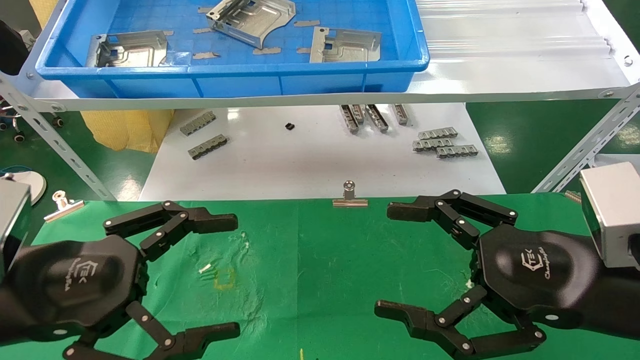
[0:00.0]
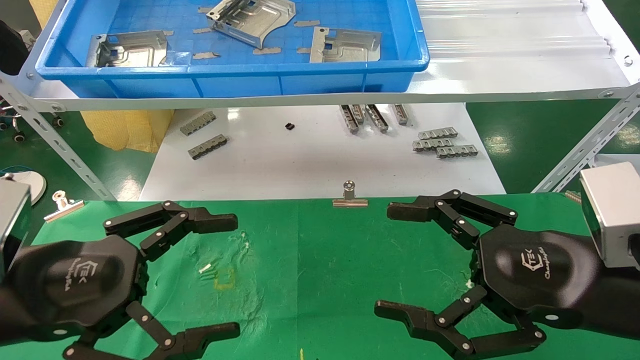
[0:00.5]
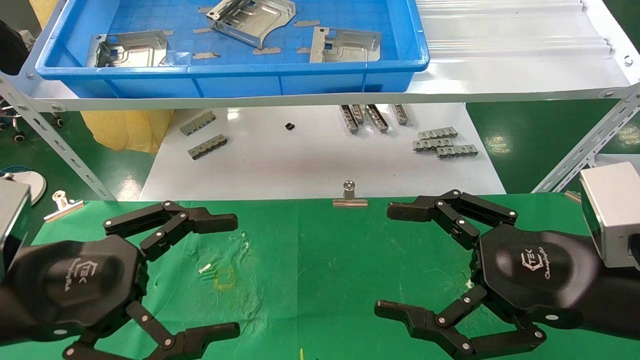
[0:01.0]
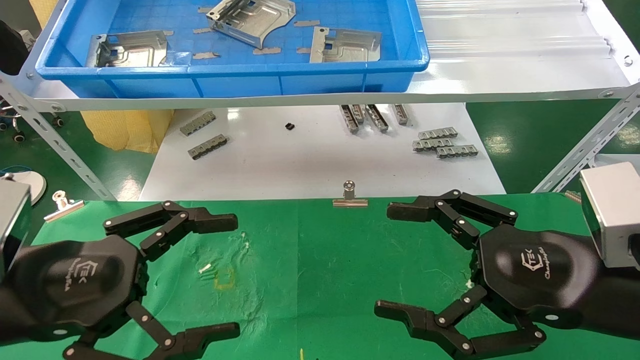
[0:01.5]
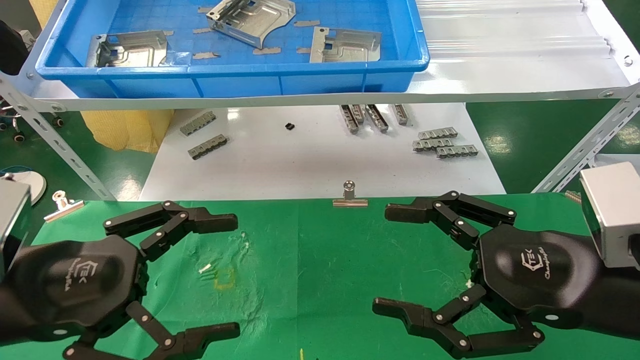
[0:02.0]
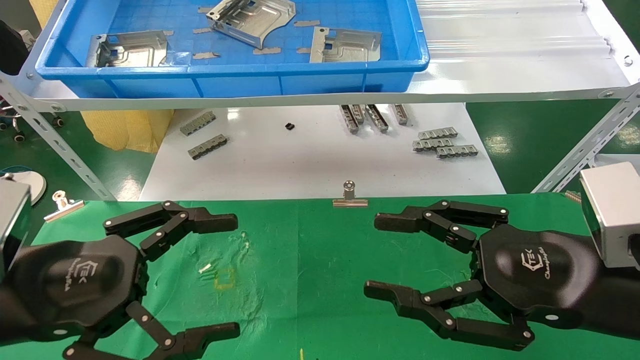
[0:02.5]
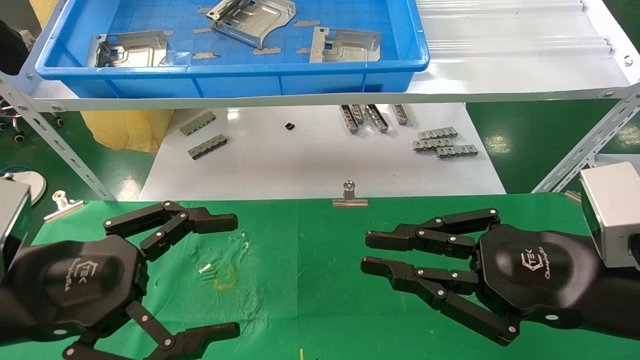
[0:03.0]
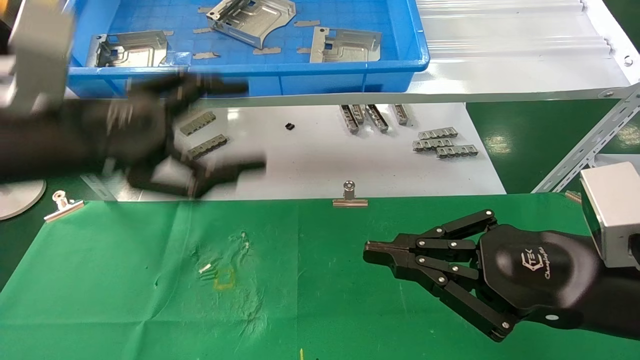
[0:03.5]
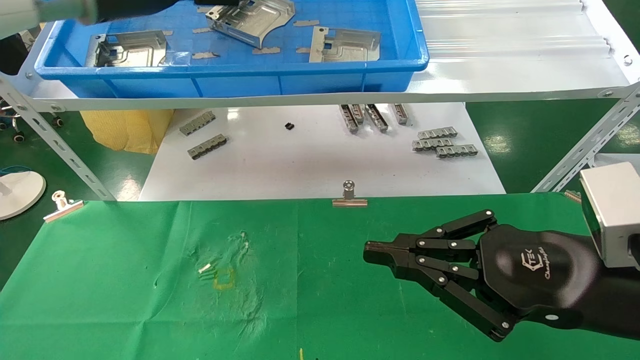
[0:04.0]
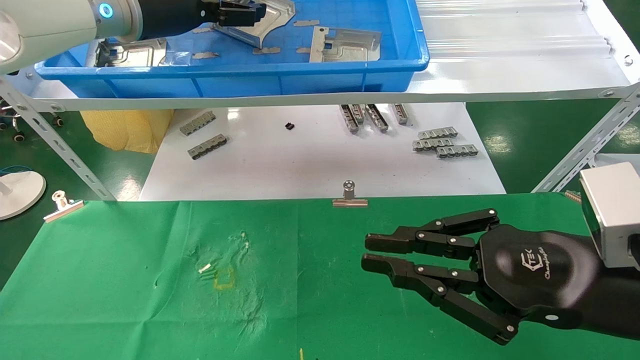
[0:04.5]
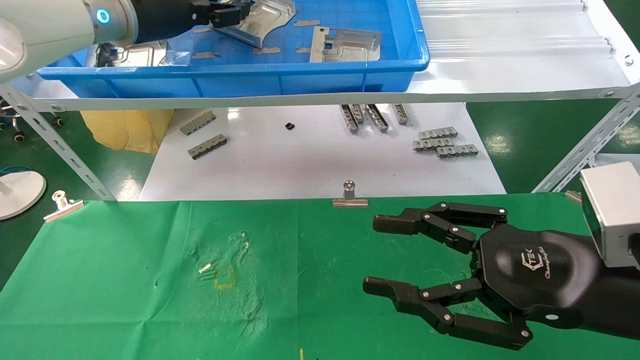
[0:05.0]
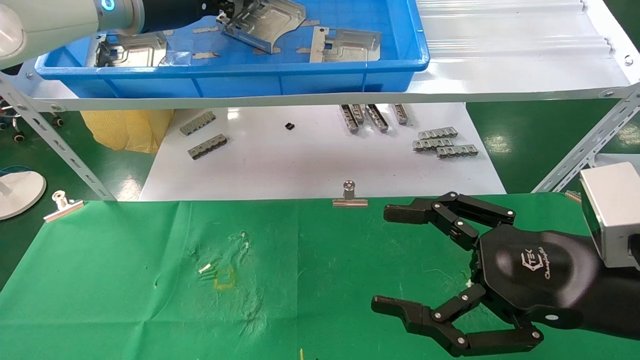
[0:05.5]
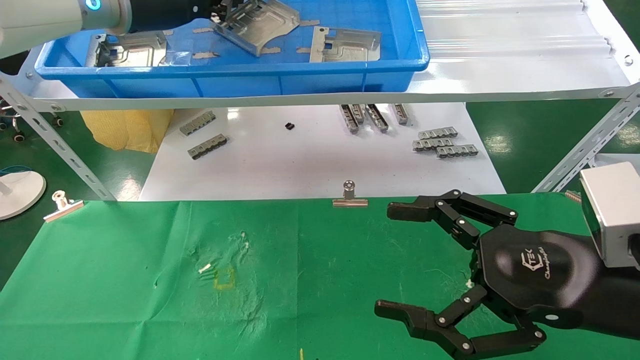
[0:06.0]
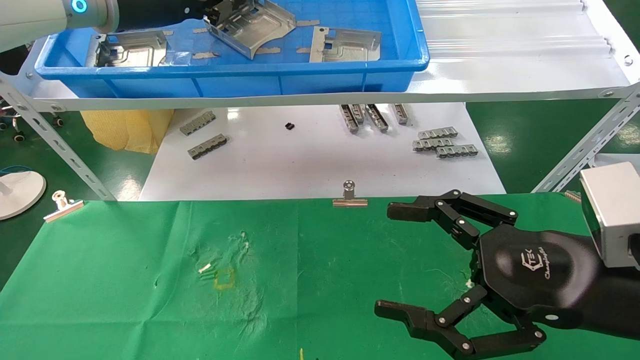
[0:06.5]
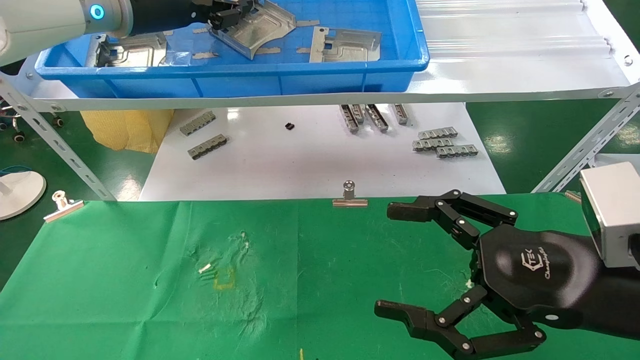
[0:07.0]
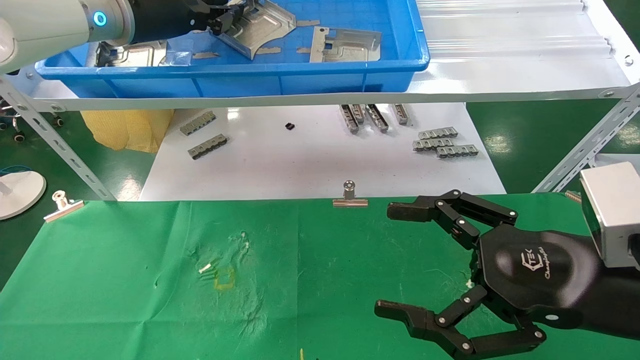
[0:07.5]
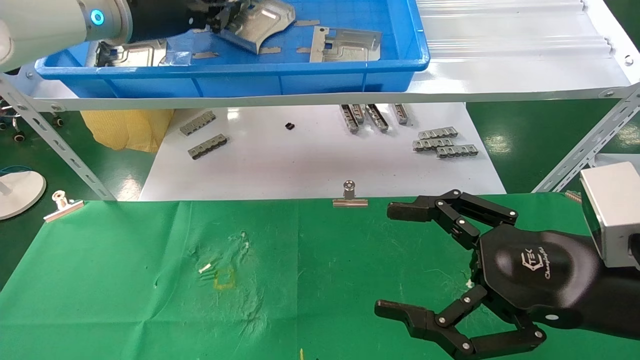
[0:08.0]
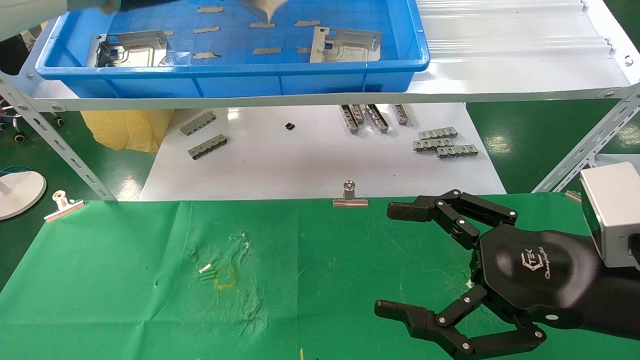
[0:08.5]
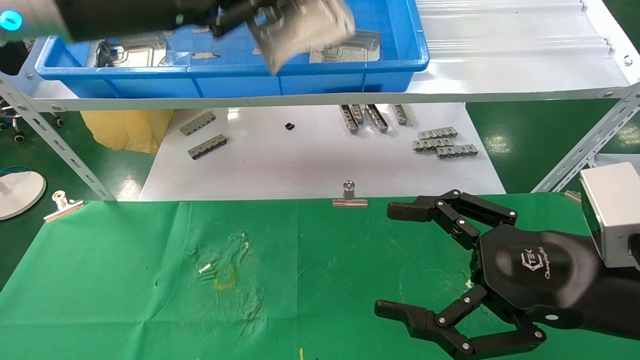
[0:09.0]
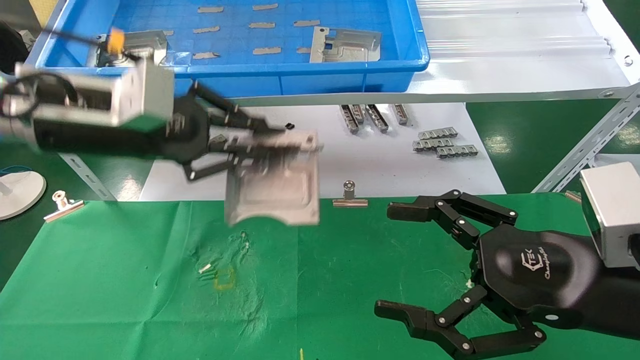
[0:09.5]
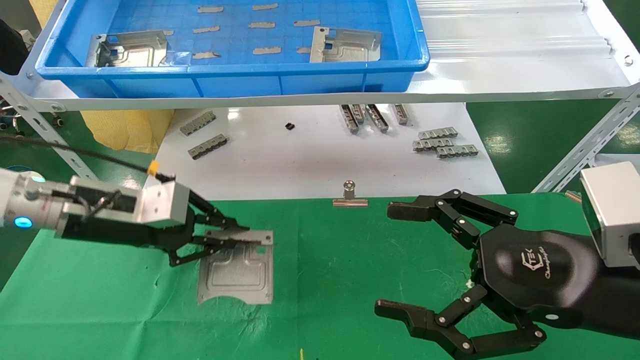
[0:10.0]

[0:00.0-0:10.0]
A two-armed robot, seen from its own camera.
Task of the whole recording: use the mechanical arm to pick up the parts and place them on the table.
Step, 0:03.5 to 0:07.5: Pick up the hard drive bracket from the feeding area.
0:00.0 to 0:02.0: Both grippers stay put.
0:02.0 to 0:04.0: The right gripper closes. Meanwhile the left gripper is displaced upward and forward by some 30 cm.
0:04.0 to 0:06.0: The left gripper closes, while the right gripper opens up.
0:06.0 to 0:08.0: The grippers stay close to where they were, moving slightly.
0:08.0 to 0:10.0: The left gripper travels downward by approximately 25 cm.

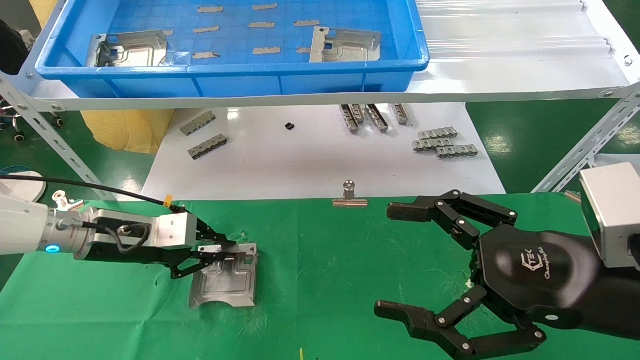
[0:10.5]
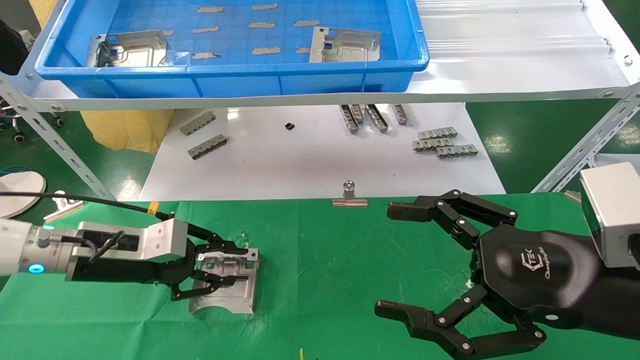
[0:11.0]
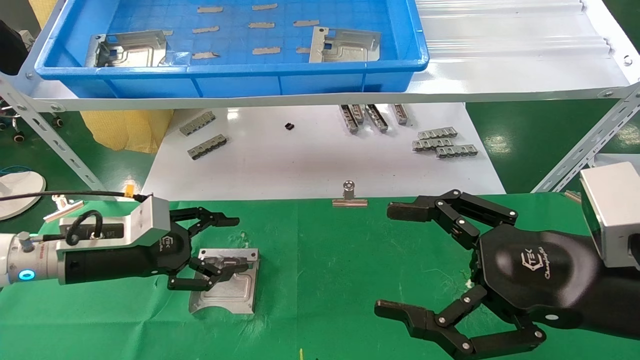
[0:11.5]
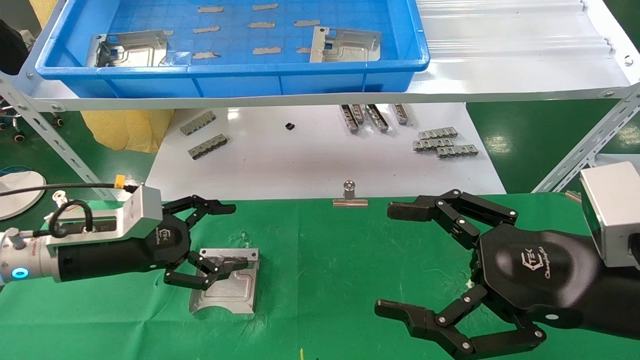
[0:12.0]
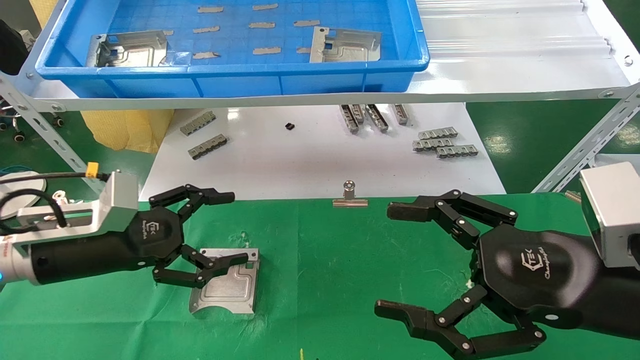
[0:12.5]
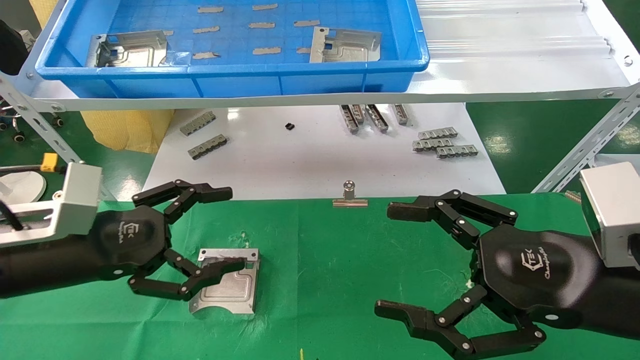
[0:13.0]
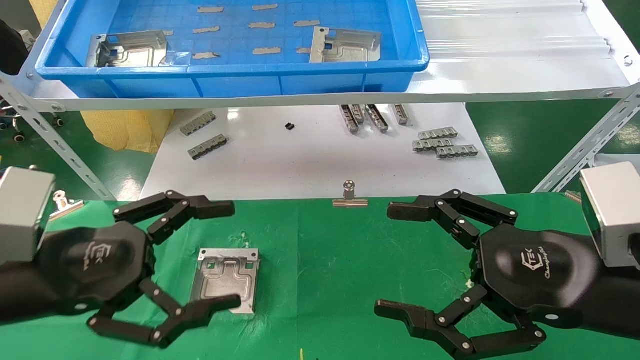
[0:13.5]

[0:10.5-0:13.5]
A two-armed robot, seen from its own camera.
Task of the whole recording: use the mechanical arm to pick up the parts and place them on the table.
0:10.5 to 0:12.0: The left gripper opens.
0:12.0 to 0:13.5: The left gripper heads backward, covering some 15 cm.
